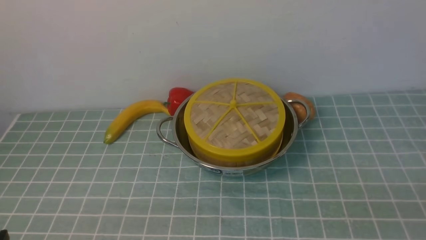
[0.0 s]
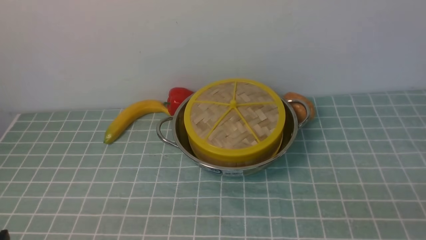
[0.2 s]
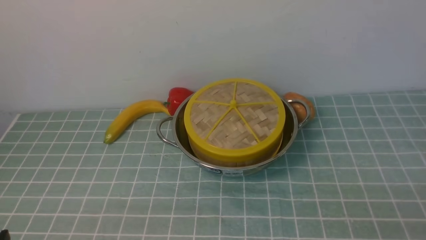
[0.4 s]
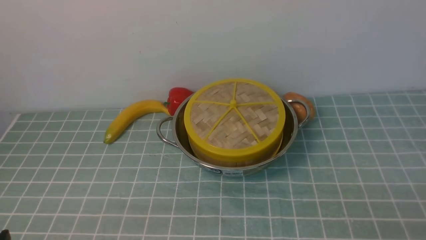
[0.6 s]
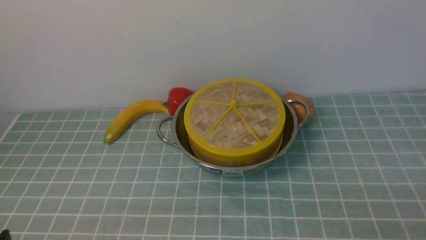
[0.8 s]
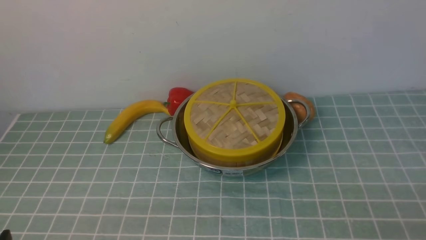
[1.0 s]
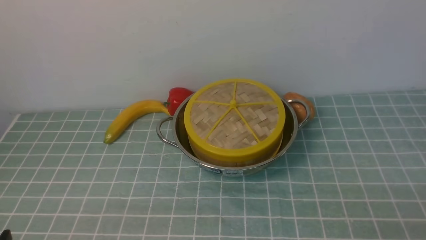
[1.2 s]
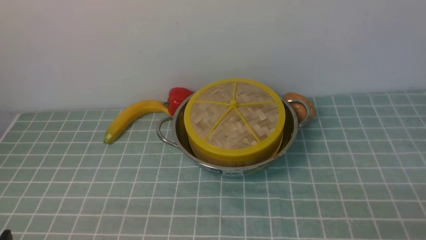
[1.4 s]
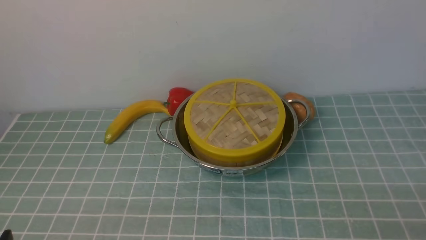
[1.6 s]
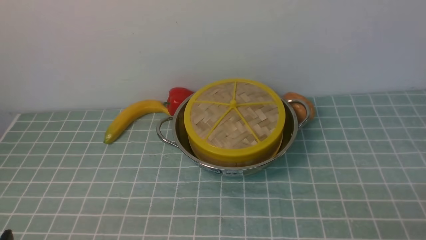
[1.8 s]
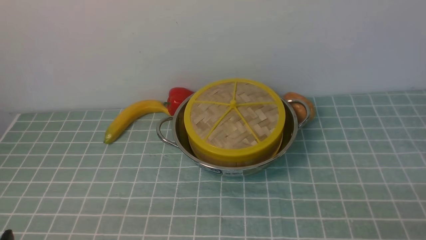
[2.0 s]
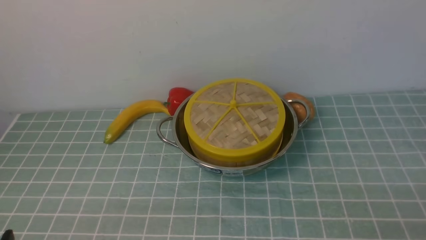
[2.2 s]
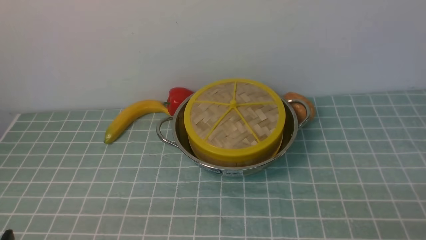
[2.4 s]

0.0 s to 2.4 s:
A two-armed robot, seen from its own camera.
Task of the whole recording: place the steamer in the pot on the blue tablecloth, and put the lid on the steamer.
1.2 to 2.4 s: Both grippers stay about where they are.
